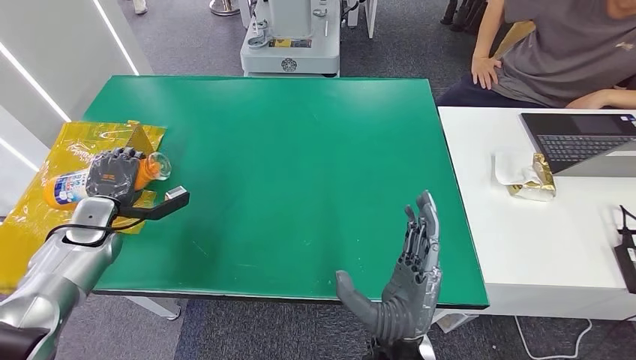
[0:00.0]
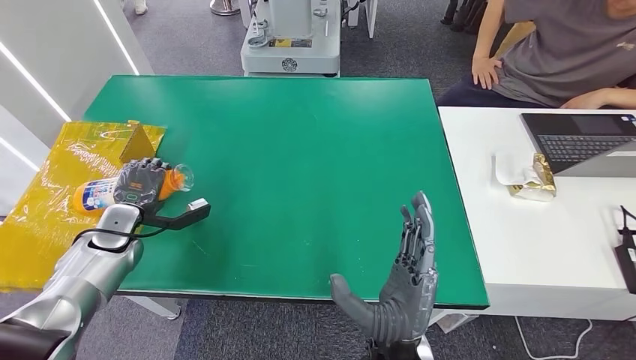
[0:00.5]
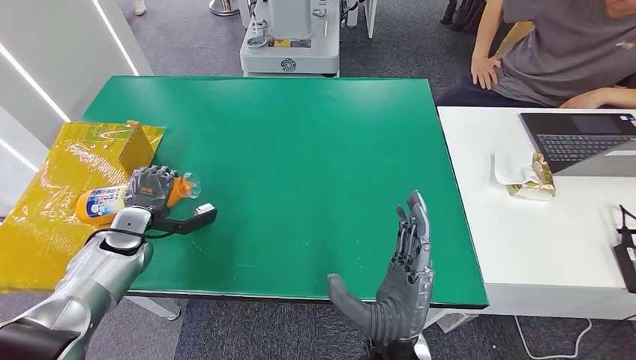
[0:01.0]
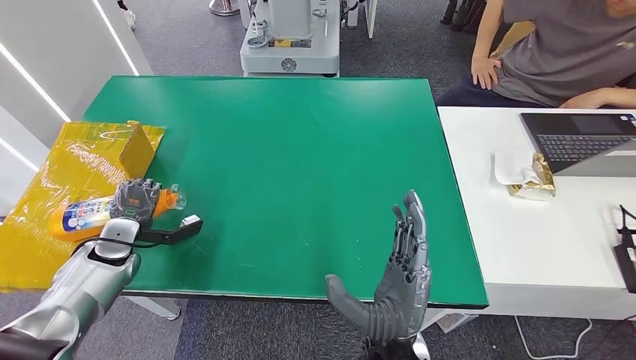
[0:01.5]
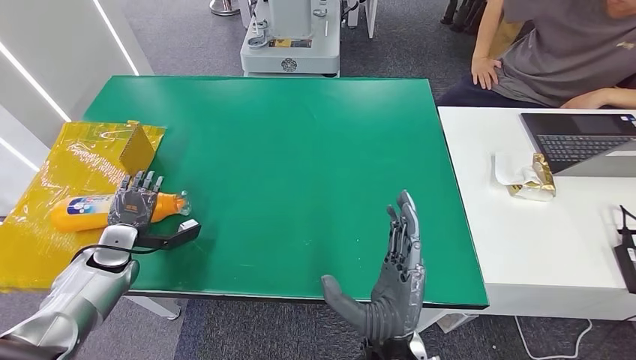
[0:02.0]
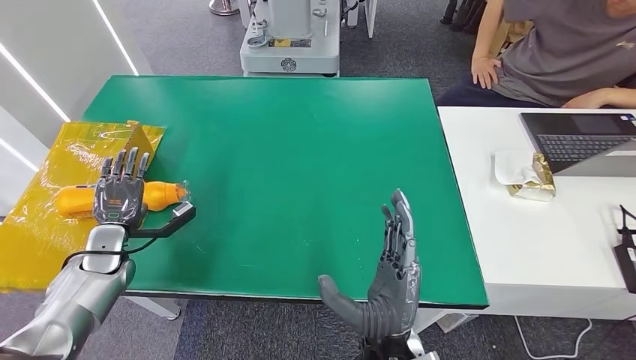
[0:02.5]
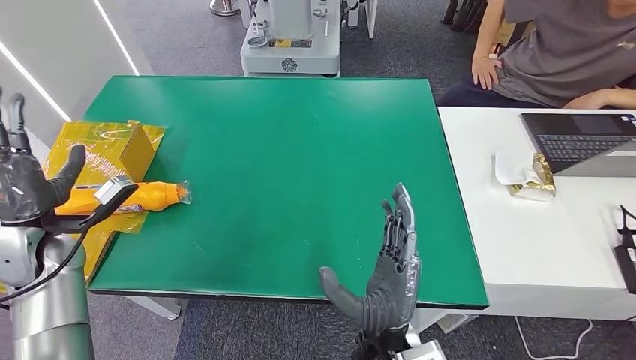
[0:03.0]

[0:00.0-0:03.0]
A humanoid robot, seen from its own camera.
Step, 0:00.0 to 0:03.0: Turn the bottle to the front side.
0:00.0 to 0:01.5: The left hand changes place by approximately 5 cm.
0:01.5 to 0:03.0: The left hand travels upward by some 10 cm.

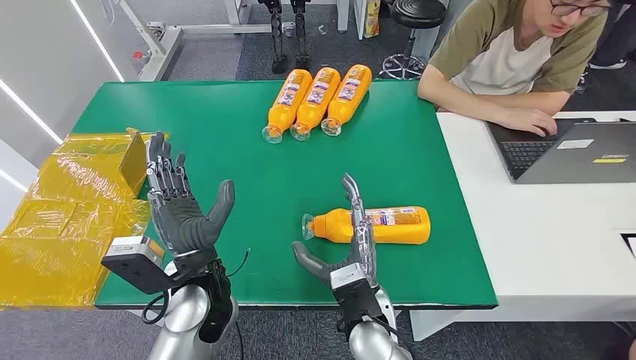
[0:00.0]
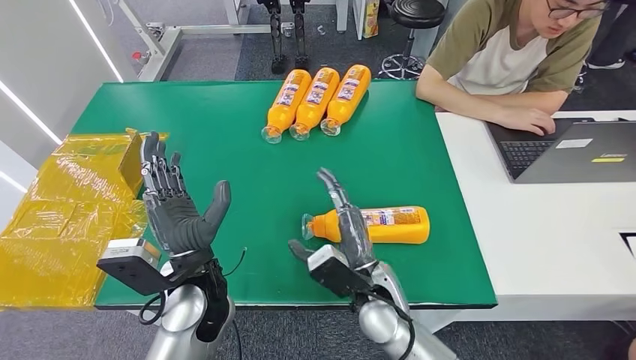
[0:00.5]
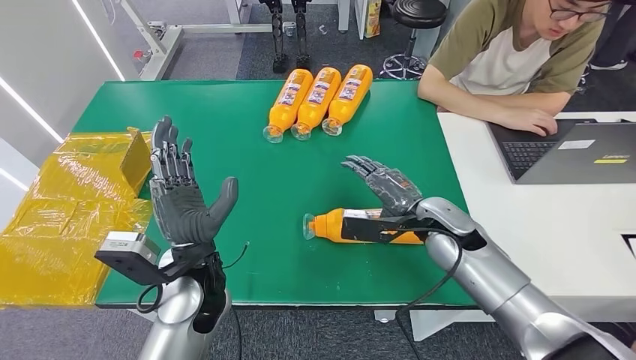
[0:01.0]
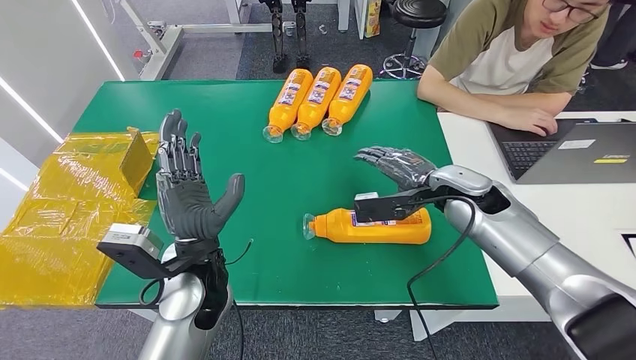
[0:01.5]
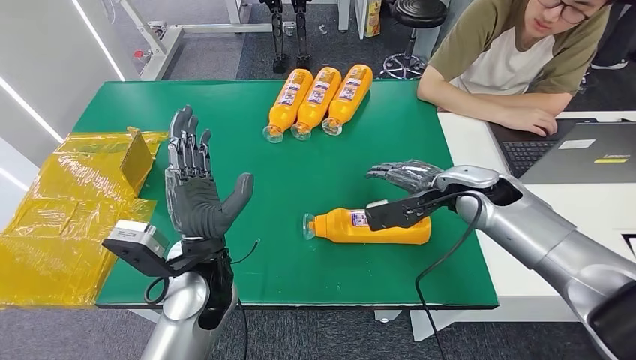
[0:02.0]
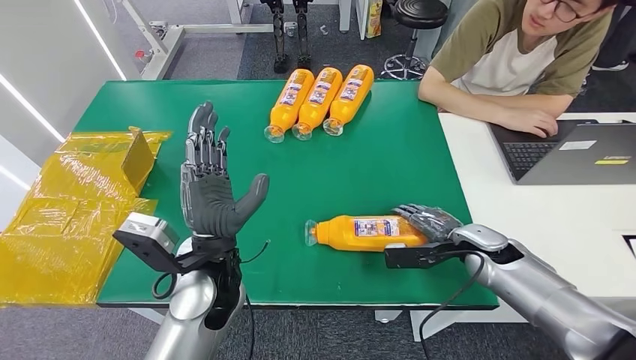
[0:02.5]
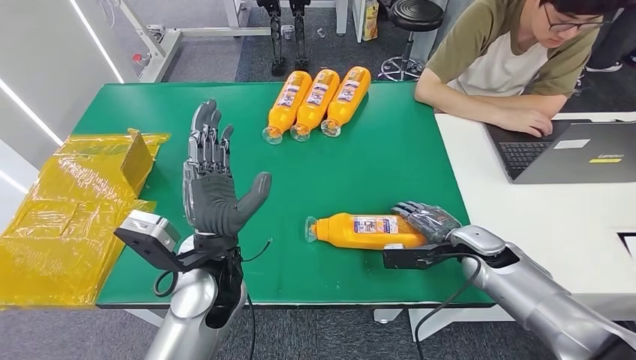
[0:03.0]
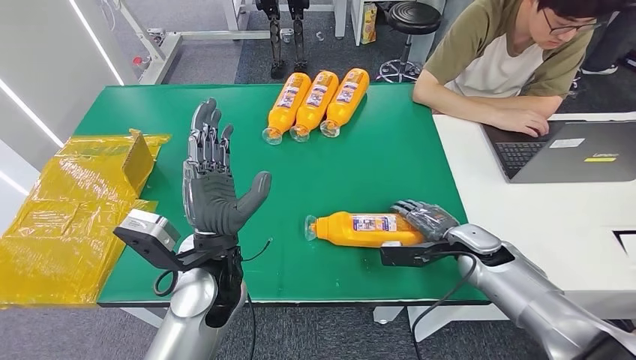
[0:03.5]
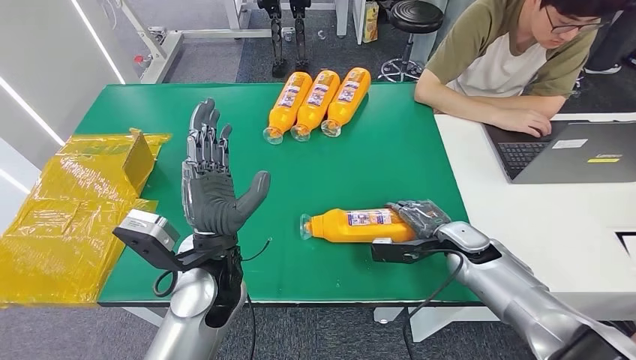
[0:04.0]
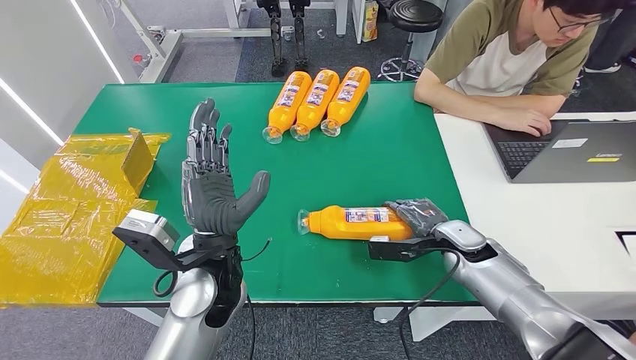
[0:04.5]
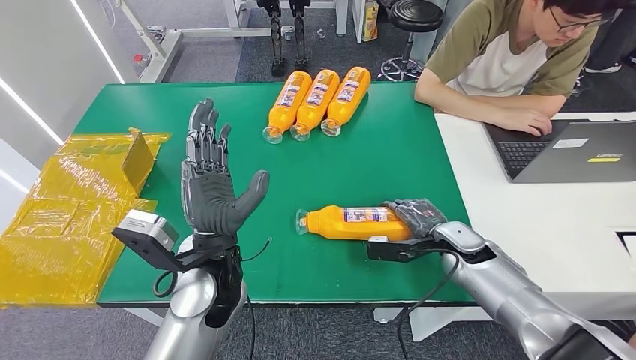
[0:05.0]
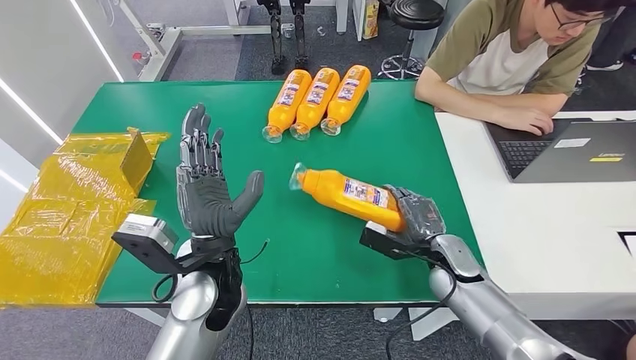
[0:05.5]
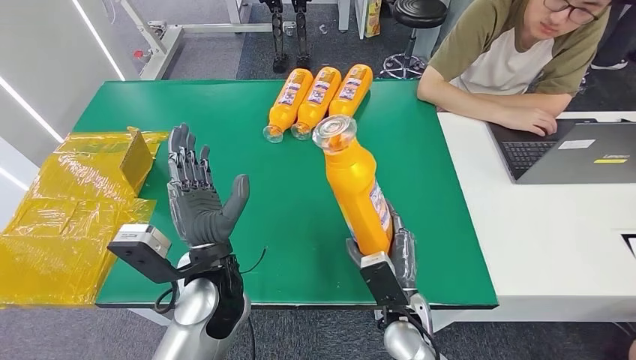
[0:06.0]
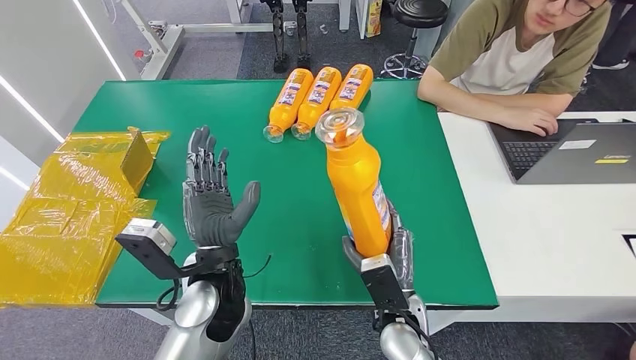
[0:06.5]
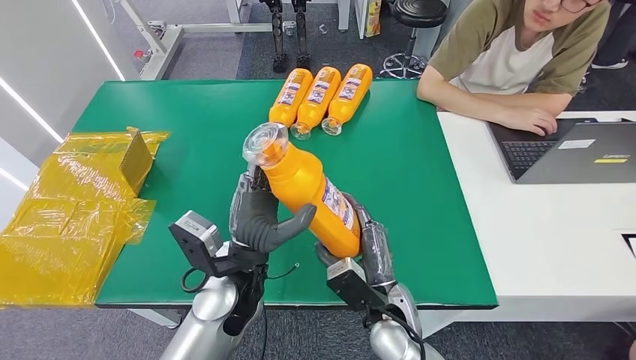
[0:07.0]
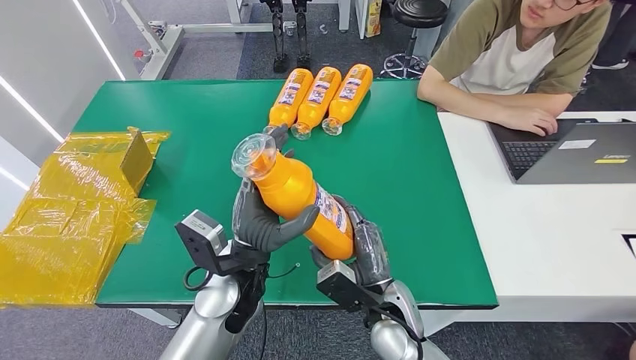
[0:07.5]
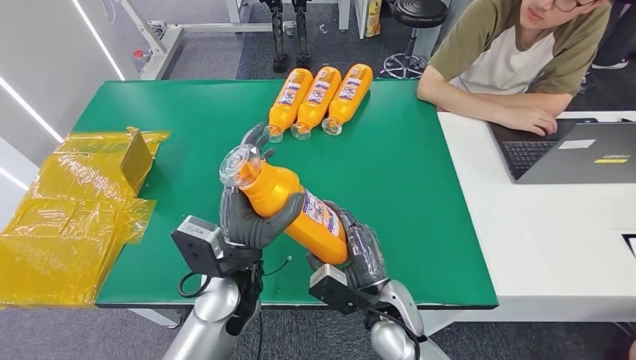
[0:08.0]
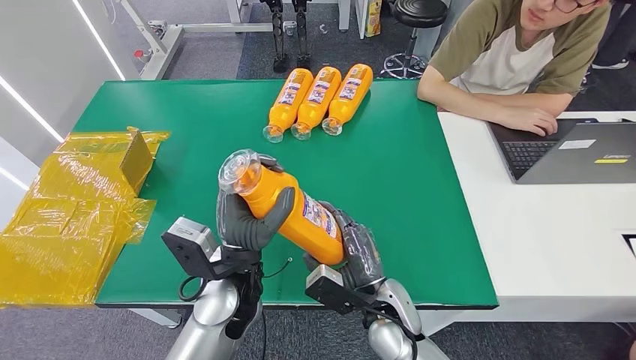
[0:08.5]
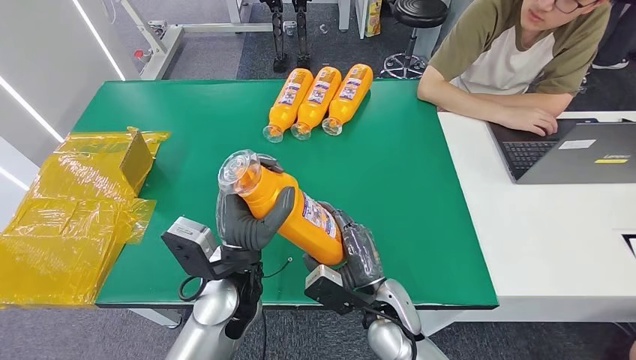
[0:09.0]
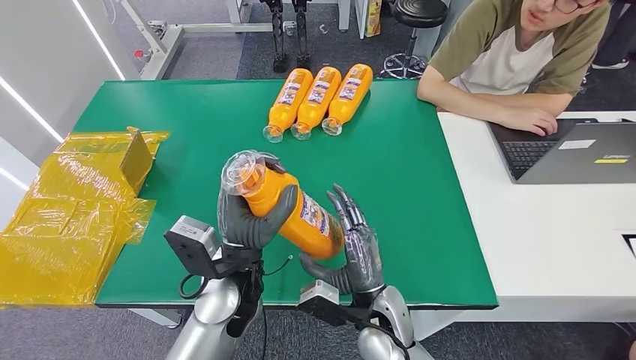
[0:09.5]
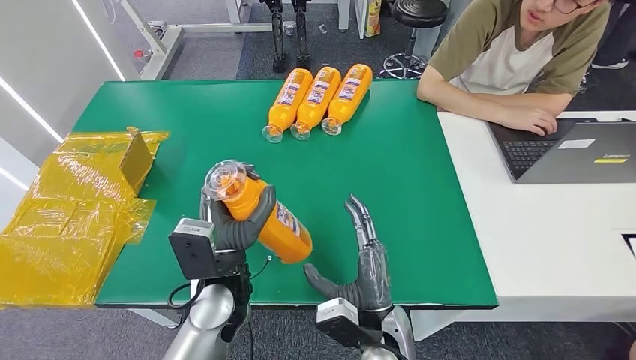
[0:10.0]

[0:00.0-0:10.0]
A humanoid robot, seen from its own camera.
Step, 0:00.0 to 0:06.5: Pick up the bottle from the table.

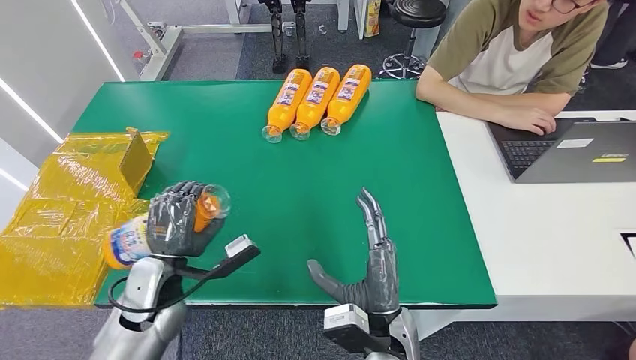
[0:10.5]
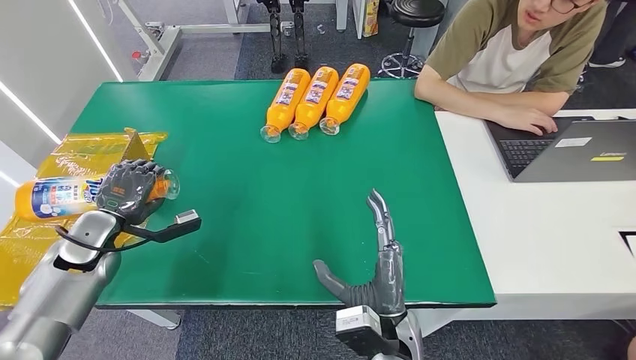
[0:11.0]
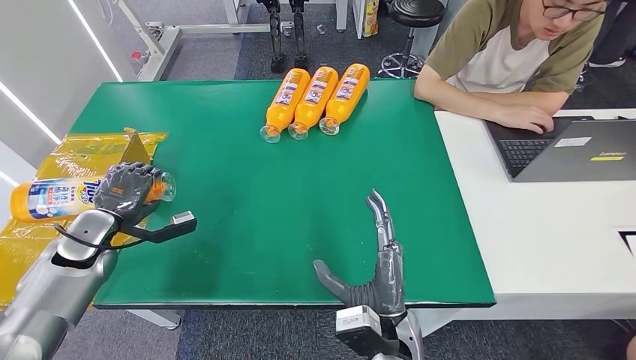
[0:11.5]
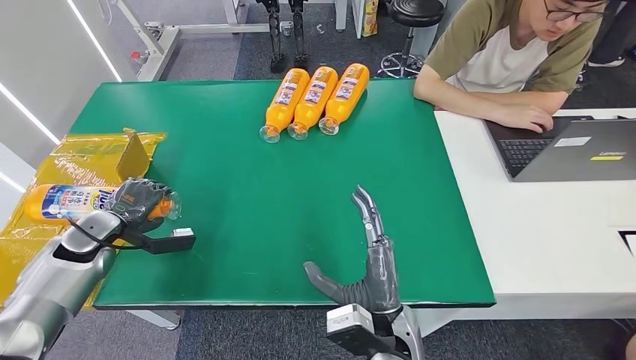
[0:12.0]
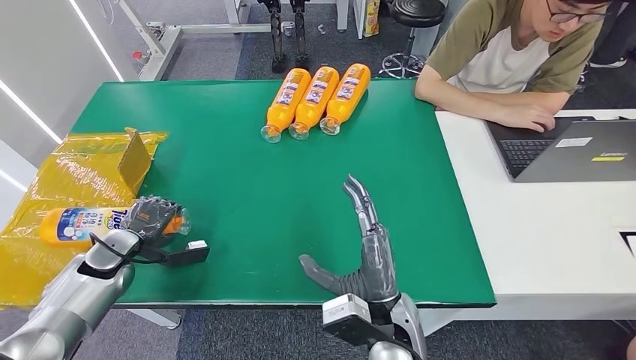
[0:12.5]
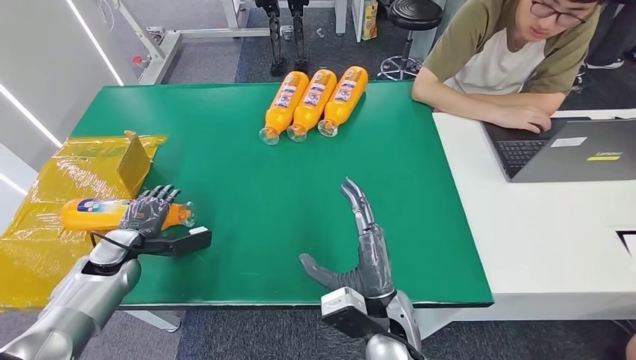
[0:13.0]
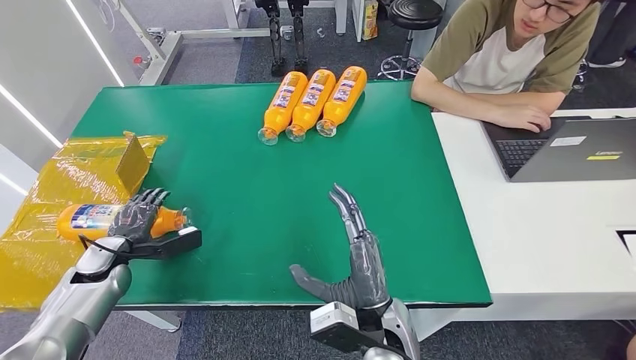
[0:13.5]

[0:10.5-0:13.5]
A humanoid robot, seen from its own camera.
Step, 0:10.5 to 0:13.5: Turn the bottle to the front side.
0:10.5 to 0:12.0: The left hand heads to the left, covering some 20 cm.
0:12.0 to 0:13.5: The left hand shifts about 5 cm downward.
